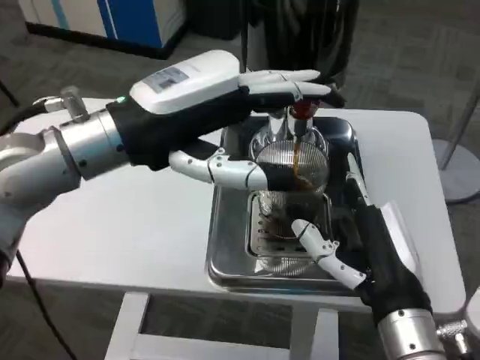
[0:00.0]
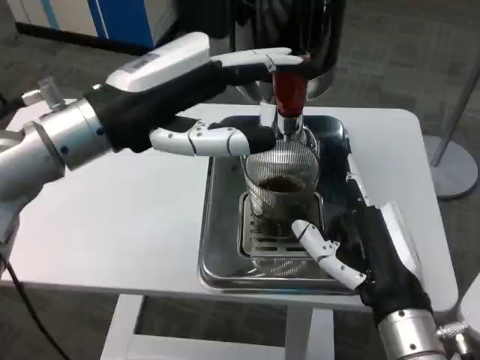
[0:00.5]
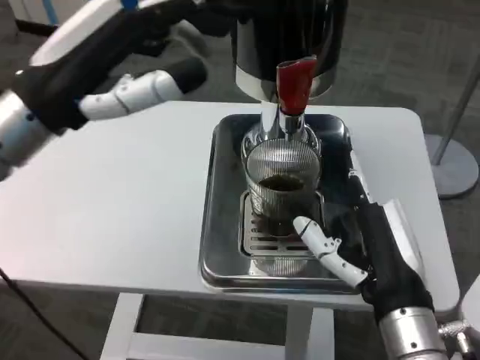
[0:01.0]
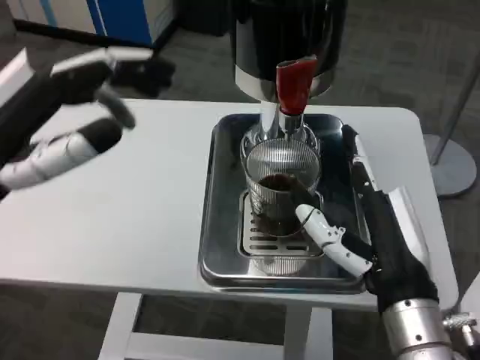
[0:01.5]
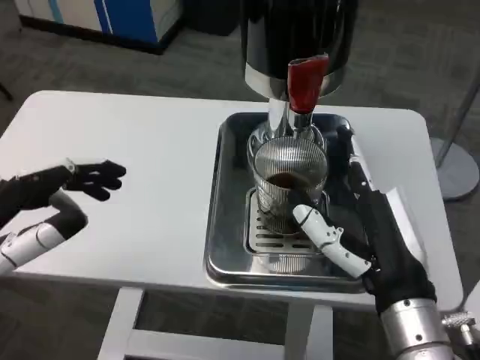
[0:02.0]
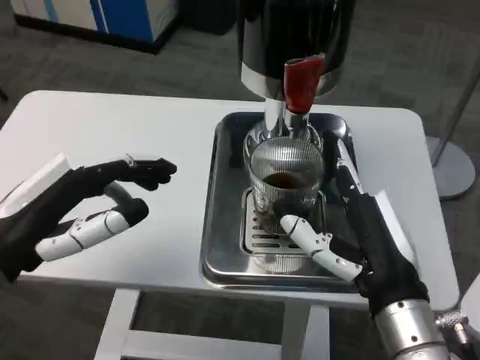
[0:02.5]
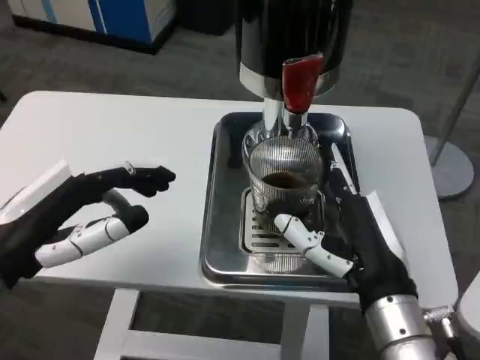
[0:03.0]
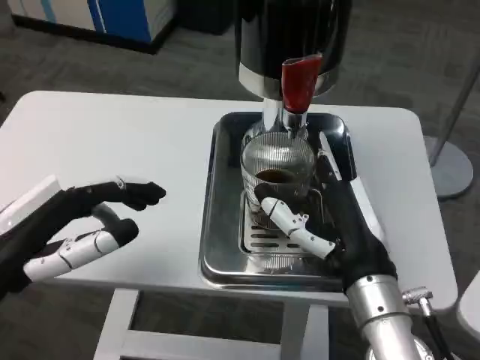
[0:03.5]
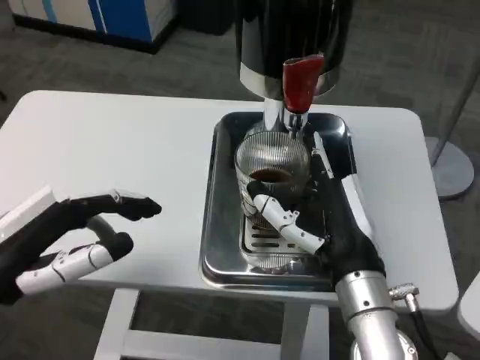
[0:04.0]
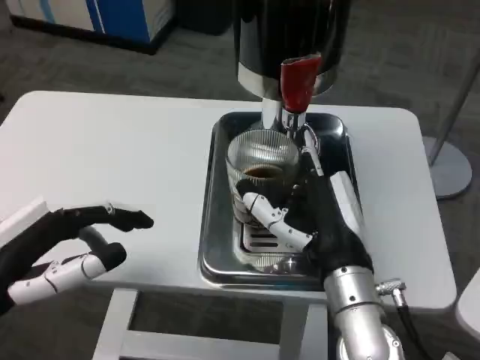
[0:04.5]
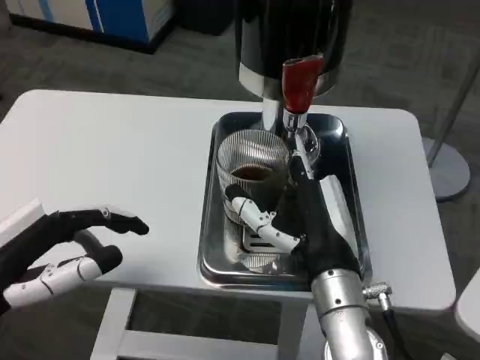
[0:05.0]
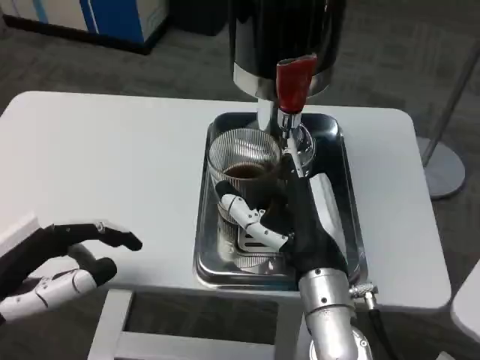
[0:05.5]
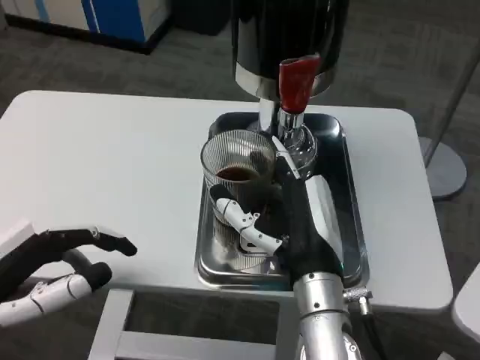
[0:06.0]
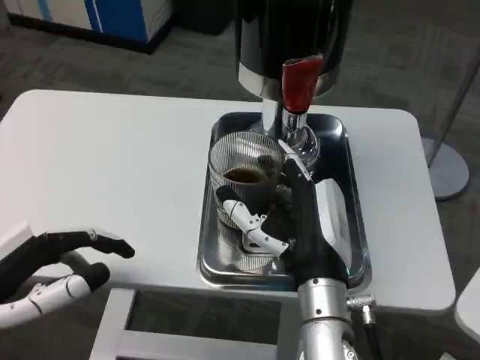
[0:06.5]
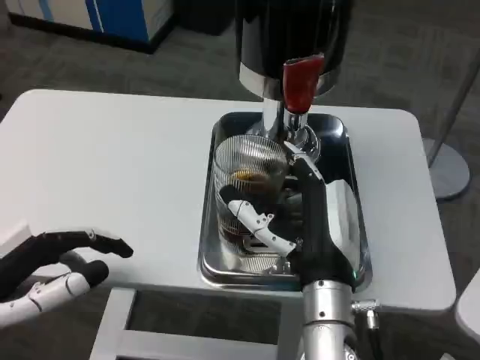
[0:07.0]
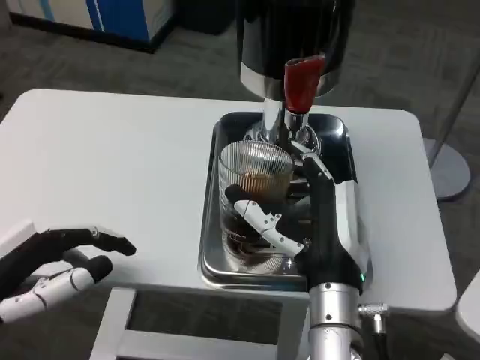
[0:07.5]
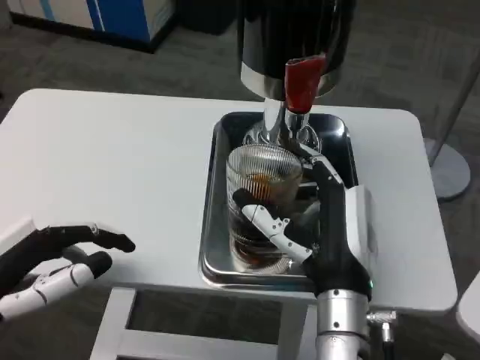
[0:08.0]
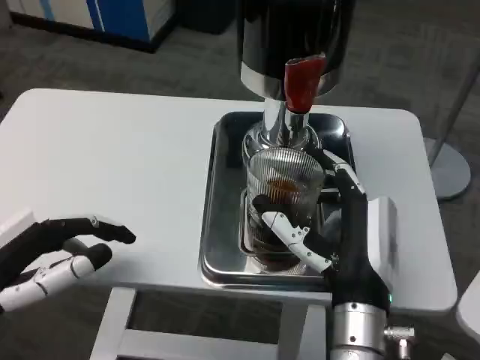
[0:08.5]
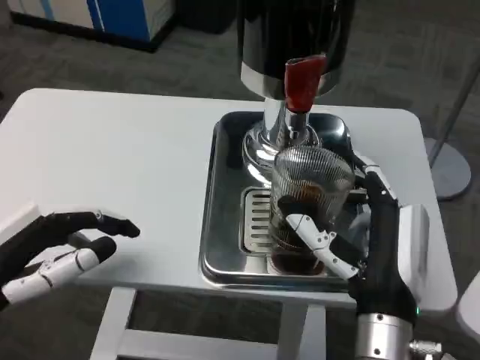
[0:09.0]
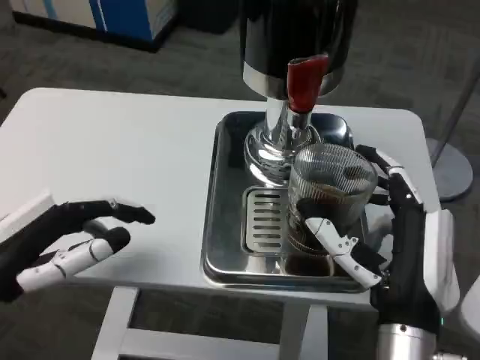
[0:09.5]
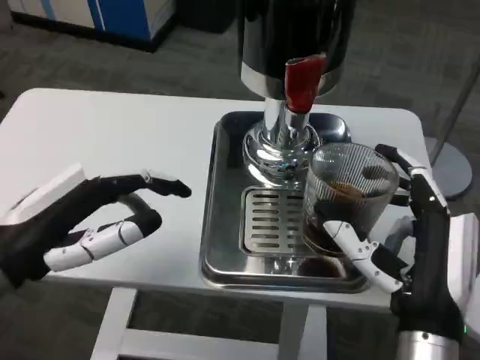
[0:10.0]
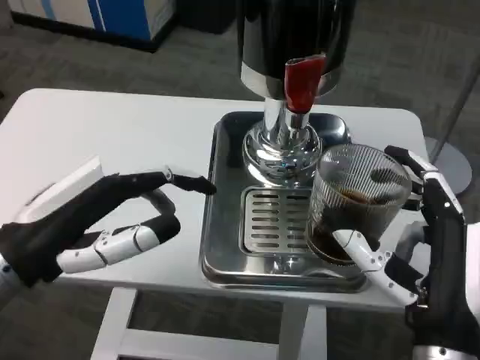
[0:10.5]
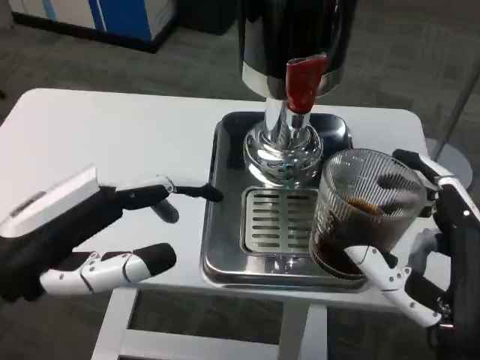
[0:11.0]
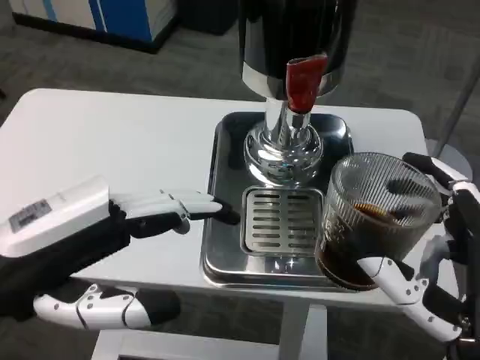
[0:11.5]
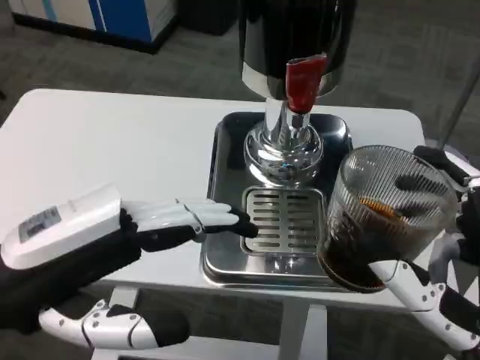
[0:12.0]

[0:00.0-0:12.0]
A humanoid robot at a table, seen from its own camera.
Task of the whole recording: Grasp the cup under the faucet to collect the drink, then remove the cup.
0:00.0 to 0:02.0: The left hand heads to the left, backward and downward, covering roughly 20 cm.
0:02.0 to 0:04.0: The right hand shifts by roughly 5 cm.
0:08.0 to 0:10.0: The right hand is displaced to the right by some 5 cm. Meanwhile the left hand ends up approximately 5 cm from where it was.
0:10.0 to 0:12.0: The left hand moves about 5 cm. Meanwhile the right hand shifts approximately 10 cm backward.

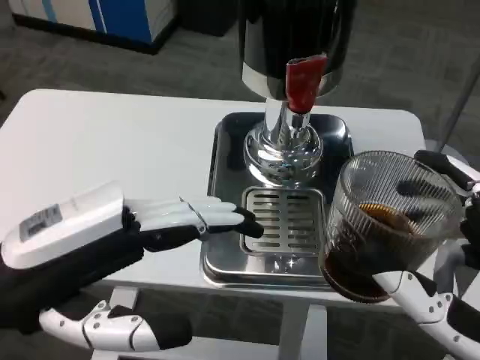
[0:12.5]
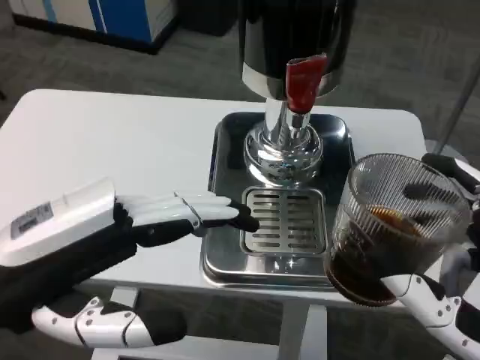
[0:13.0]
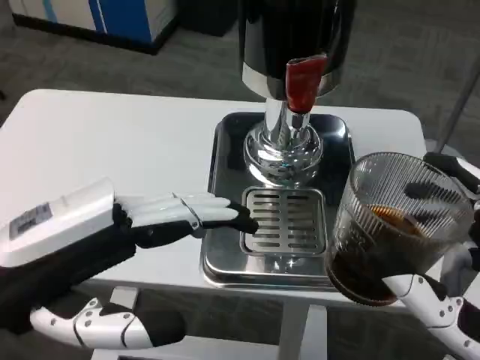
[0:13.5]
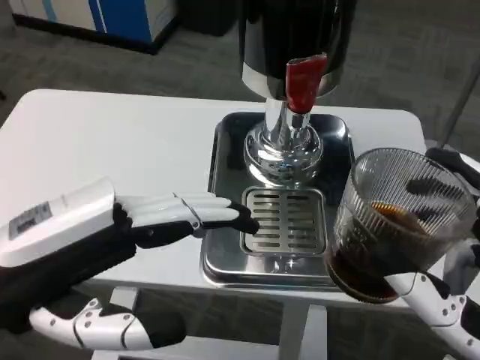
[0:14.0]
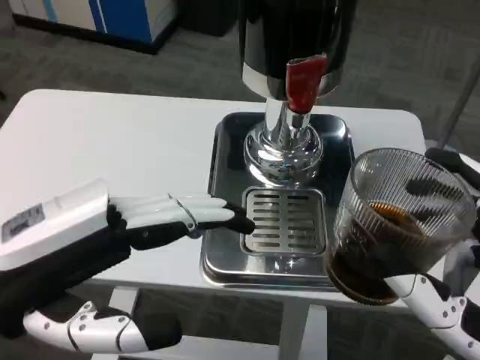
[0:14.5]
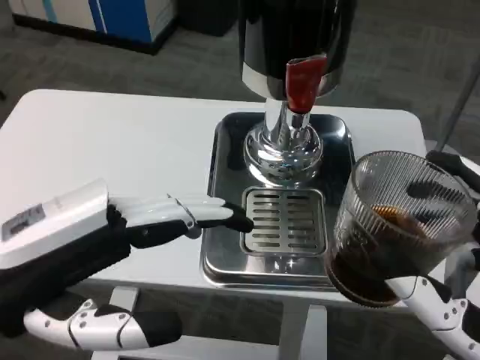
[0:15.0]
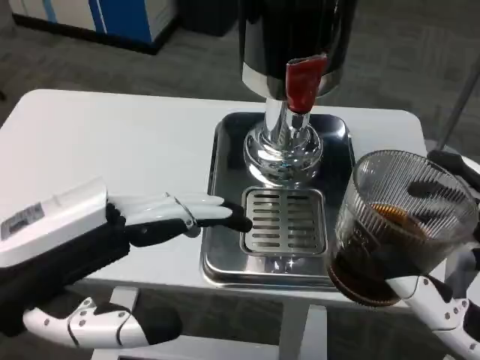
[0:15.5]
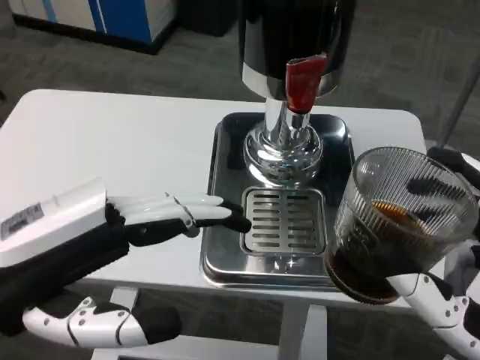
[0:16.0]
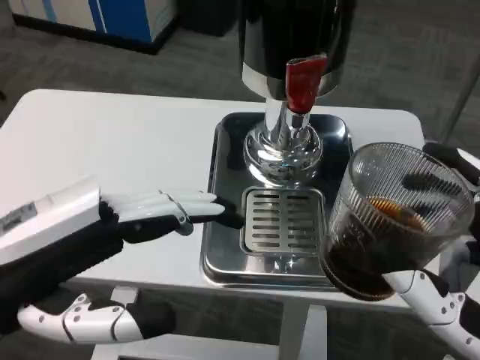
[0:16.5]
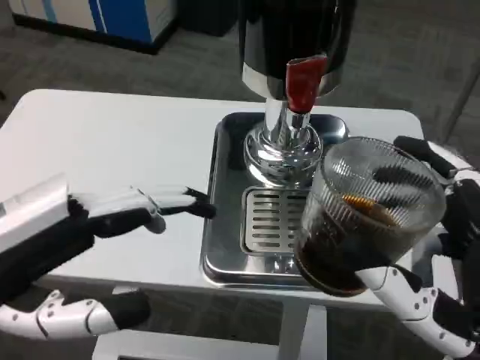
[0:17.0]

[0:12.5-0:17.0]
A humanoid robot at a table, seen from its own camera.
Task of the whole recording: Grasp the cup under the faucet to collect the drink, then remove the cup.
0:12.5 to 0:14.5: The two hands keep their place.

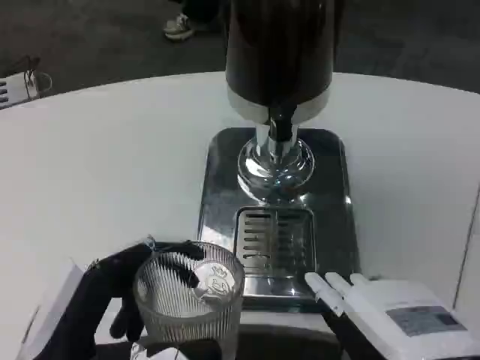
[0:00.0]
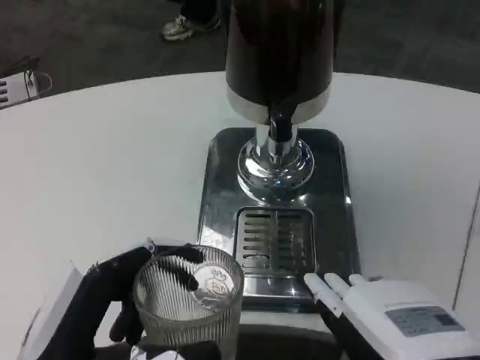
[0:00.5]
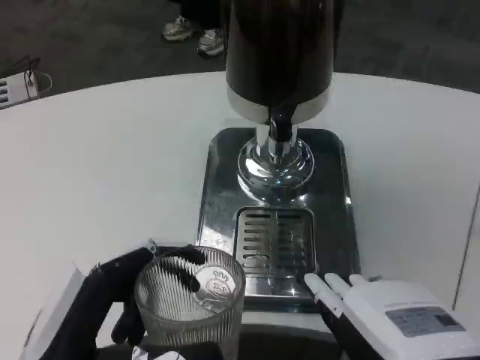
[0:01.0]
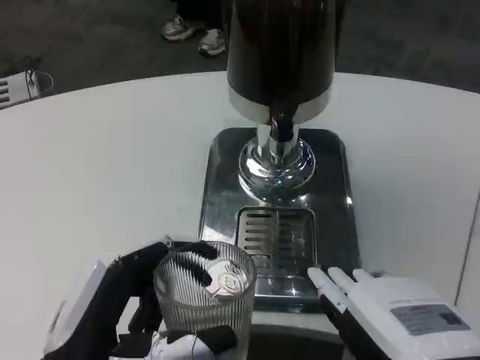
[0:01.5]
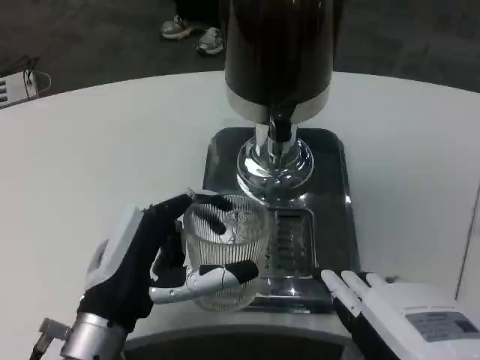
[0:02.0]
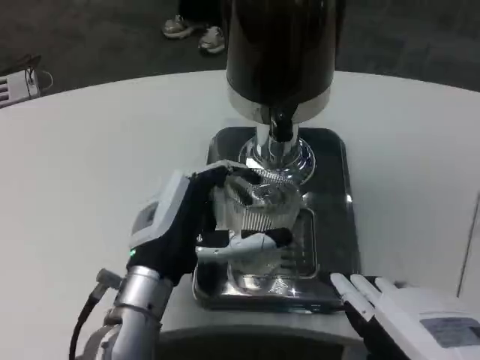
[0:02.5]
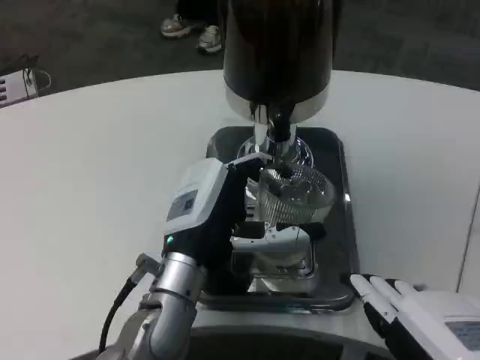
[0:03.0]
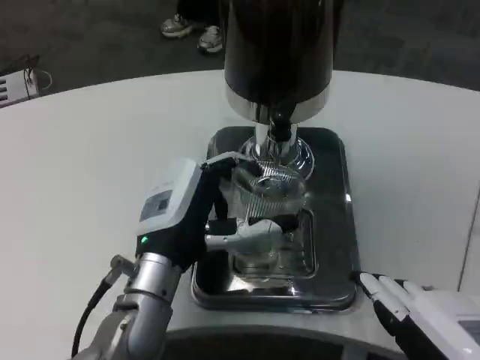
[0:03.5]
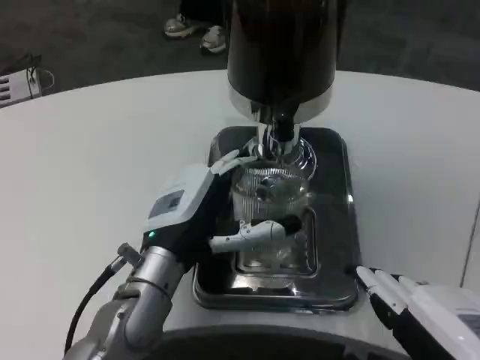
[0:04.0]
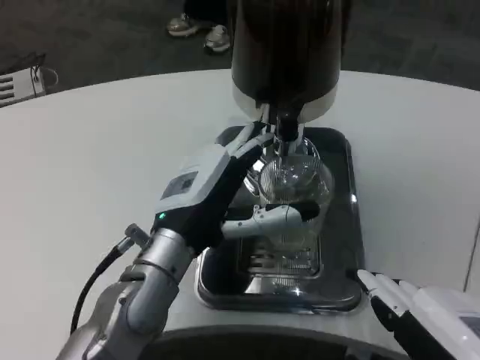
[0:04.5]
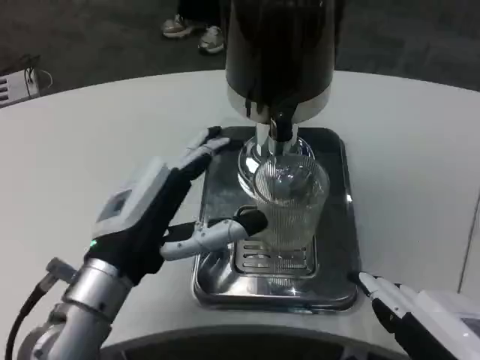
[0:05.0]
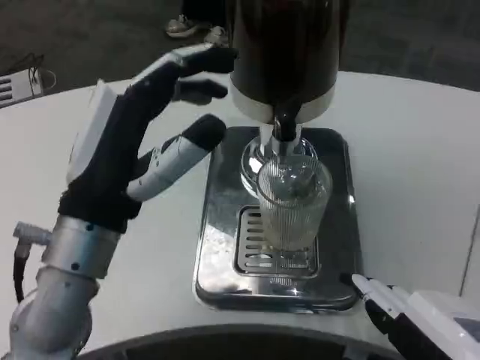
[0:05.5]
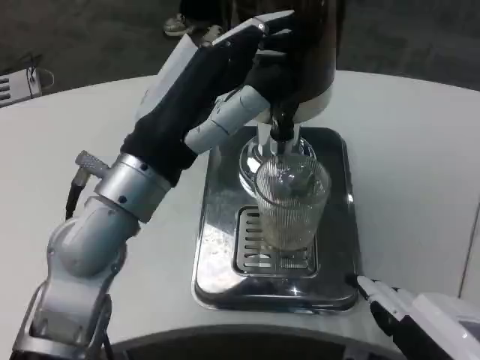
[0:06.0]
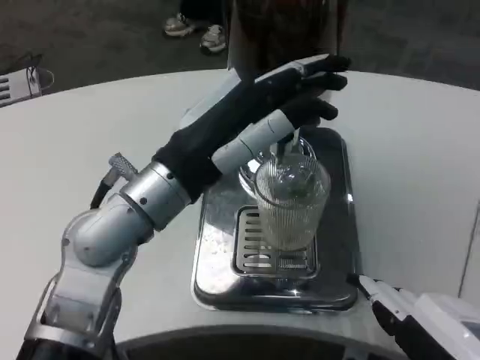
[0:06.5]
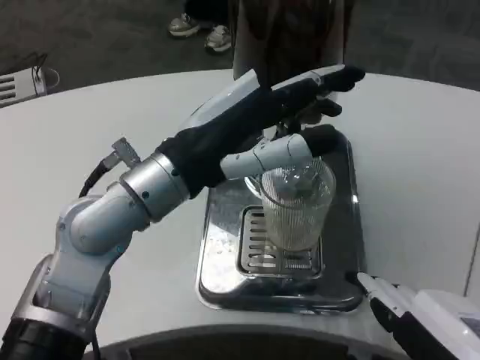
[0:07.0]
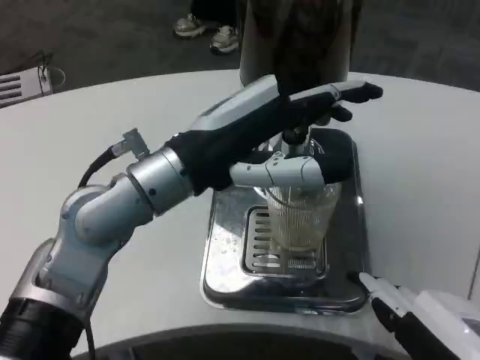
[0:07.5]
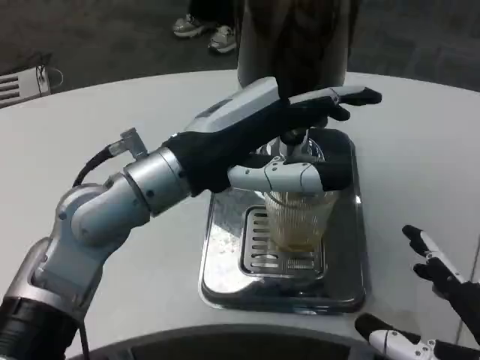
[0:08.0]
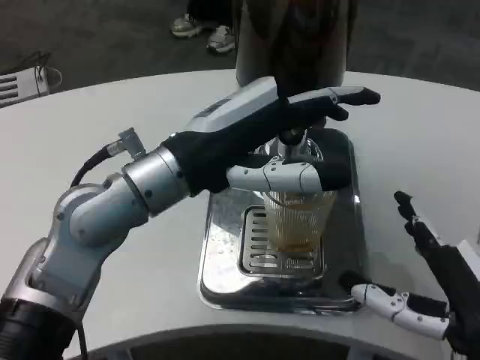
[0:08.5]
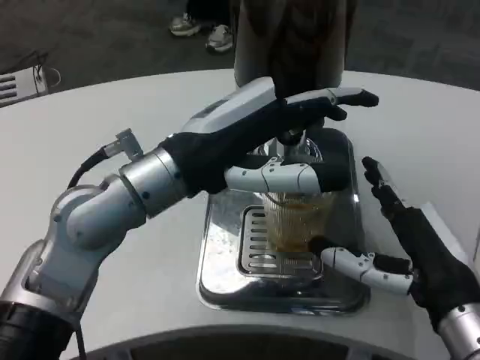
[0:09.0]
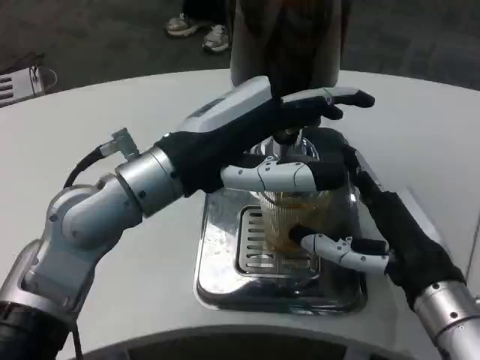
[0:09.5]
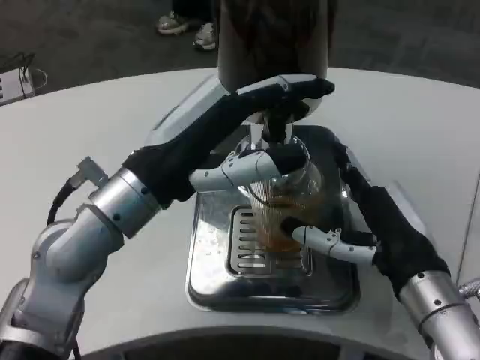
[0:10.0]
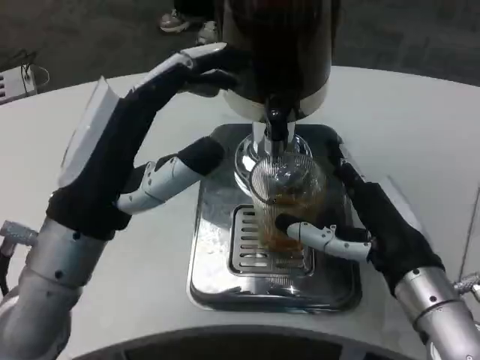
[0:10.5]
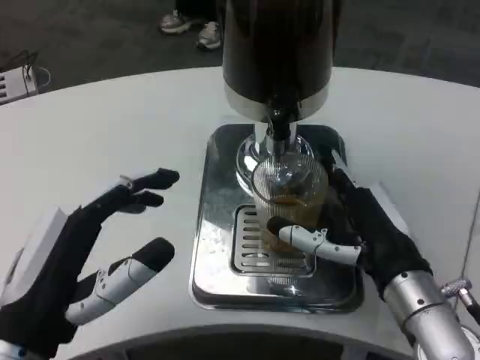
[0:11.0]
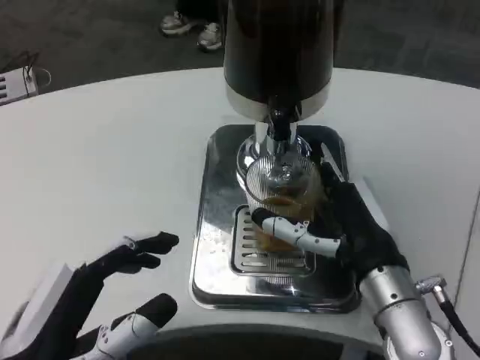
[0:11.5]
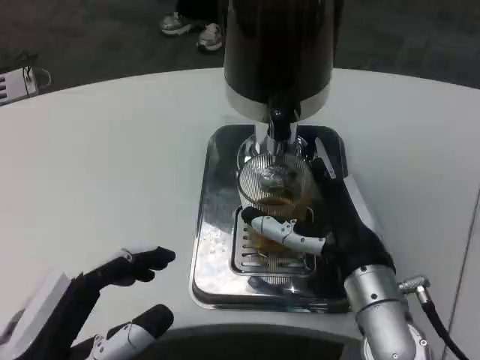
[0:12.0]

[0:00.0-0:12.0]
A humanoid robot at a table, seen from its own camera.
Task of the whole recording: Grasp the cup under the faucet to collect the drink, then remove the cup.
0:00.0 to 0:02.0: The left hand is displaced forward by about 10 cm.
0:02.0 to 0:04.0: The left hand is displaced forward by roughly 5 cm.
0:04.0 to 0:06.0: The left hand travels upward by approximately 10 cm.
0:08.0 to 0:10.0: The right hand travels forward by some 15 cm.
0:10.0 to 0:12.0: The left hand shifts roughly 20 cm backward, downward and to the left, while the right hand heads to the left, covering some 5 cm.
